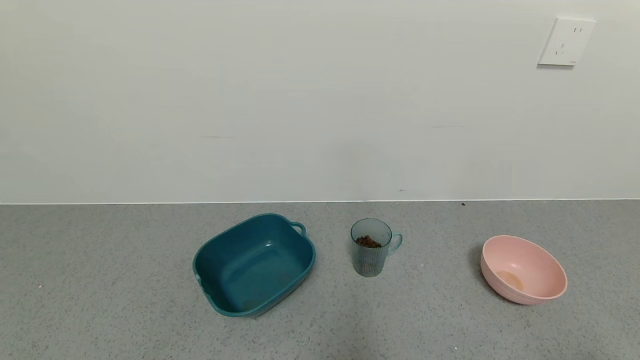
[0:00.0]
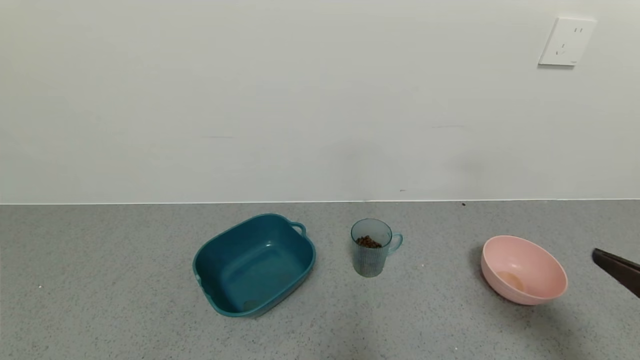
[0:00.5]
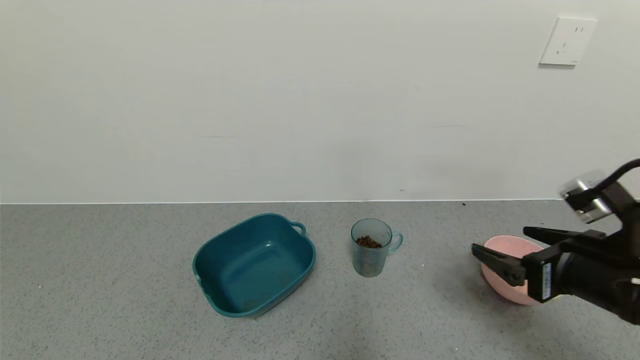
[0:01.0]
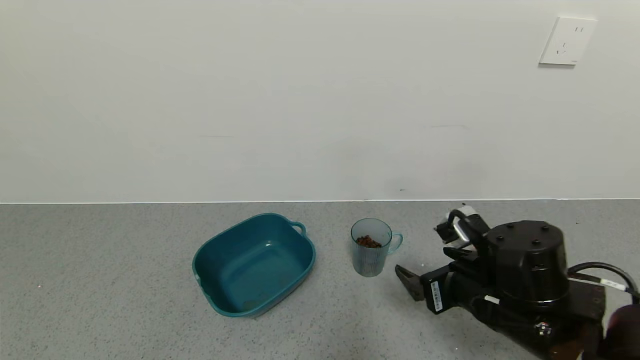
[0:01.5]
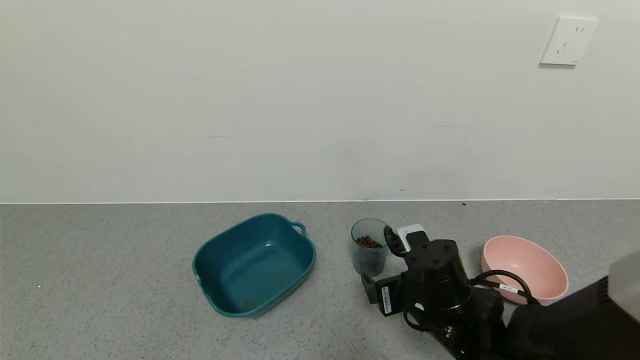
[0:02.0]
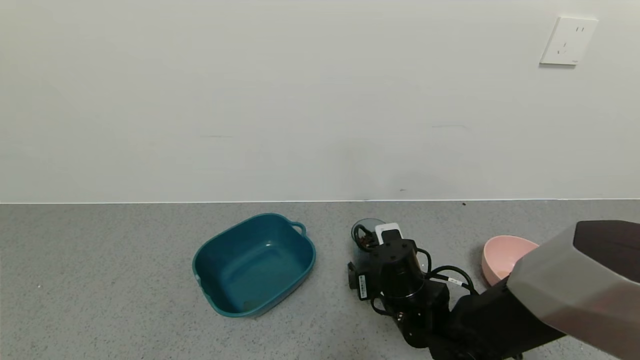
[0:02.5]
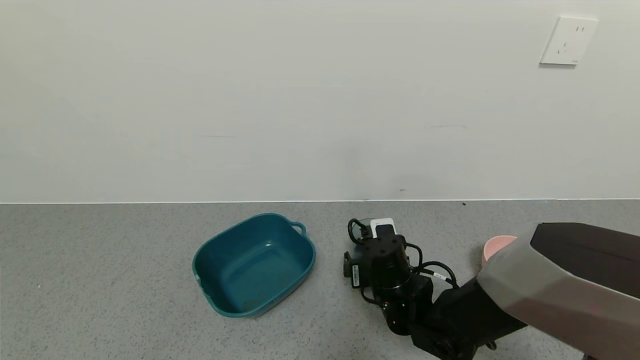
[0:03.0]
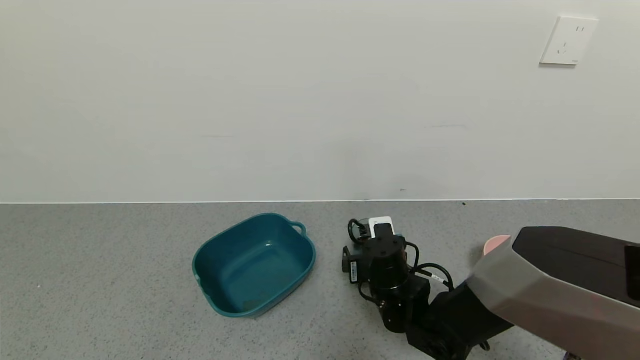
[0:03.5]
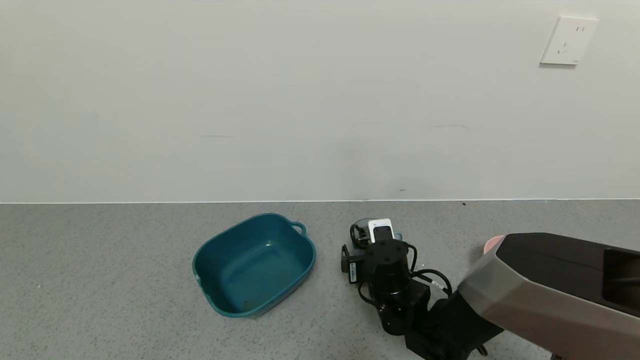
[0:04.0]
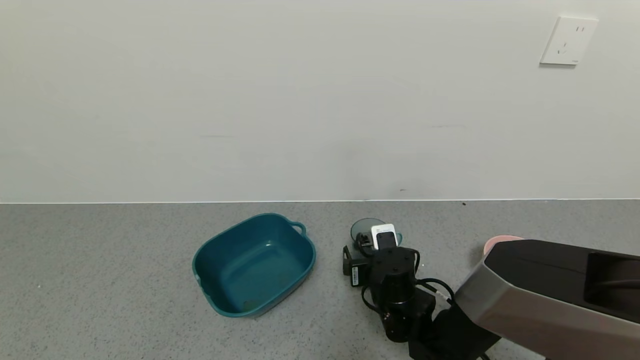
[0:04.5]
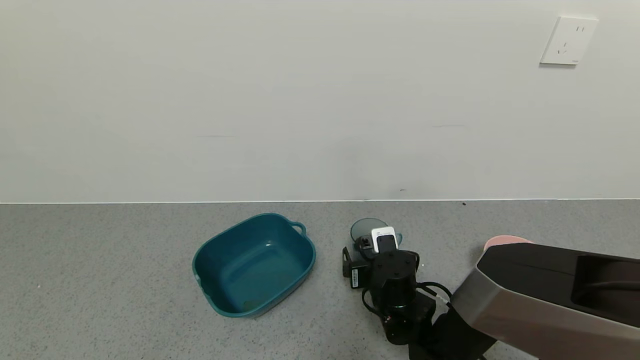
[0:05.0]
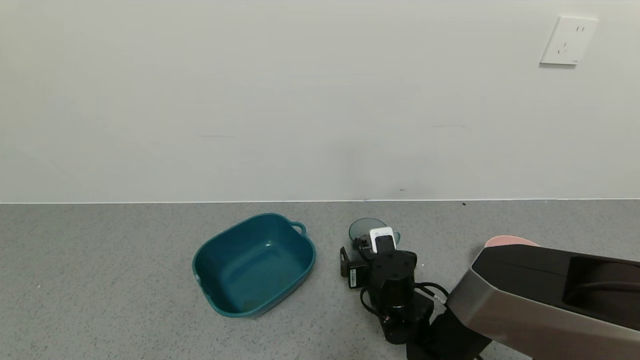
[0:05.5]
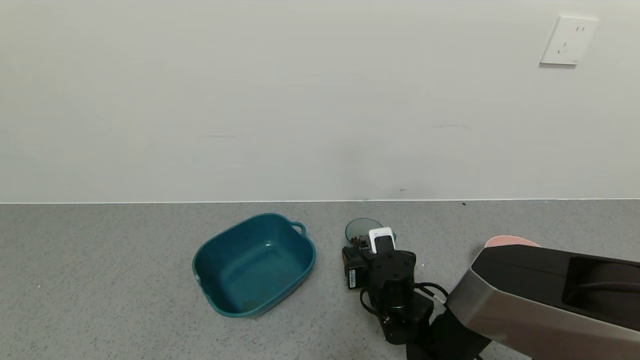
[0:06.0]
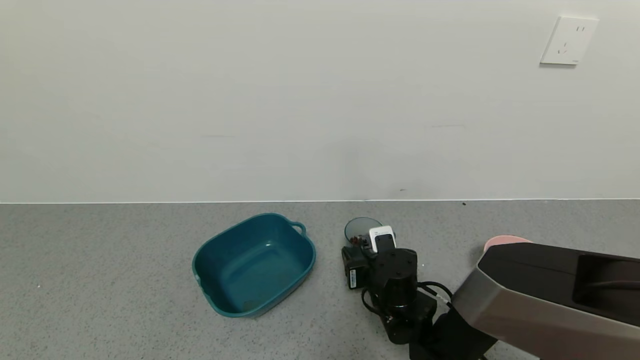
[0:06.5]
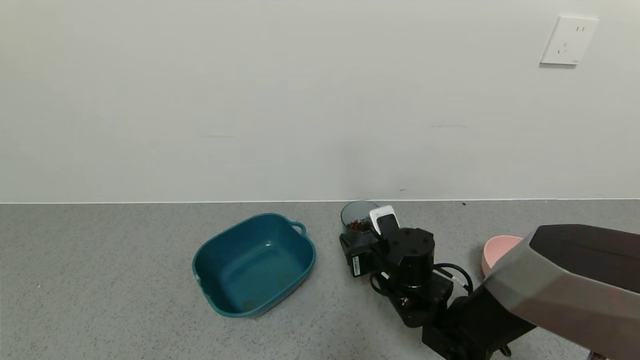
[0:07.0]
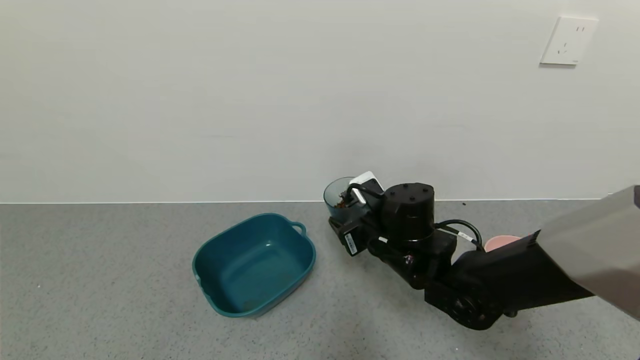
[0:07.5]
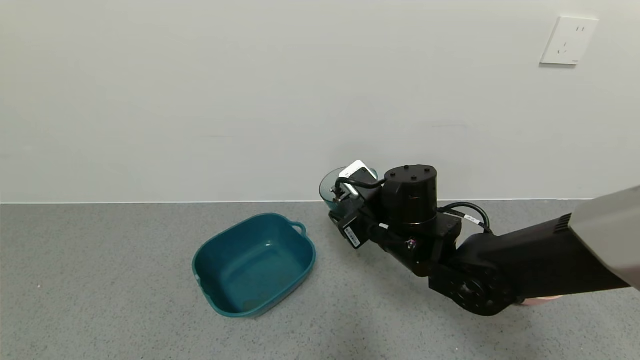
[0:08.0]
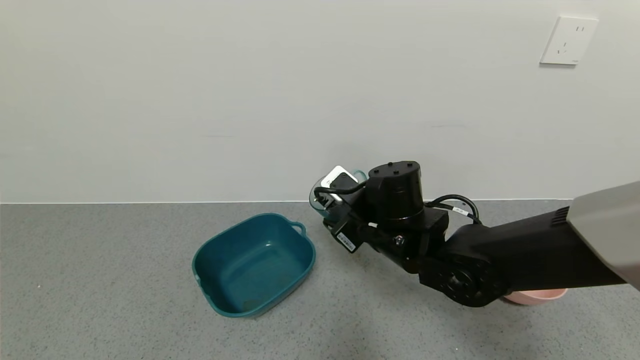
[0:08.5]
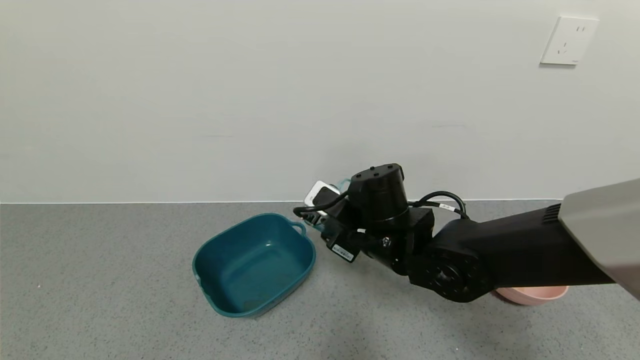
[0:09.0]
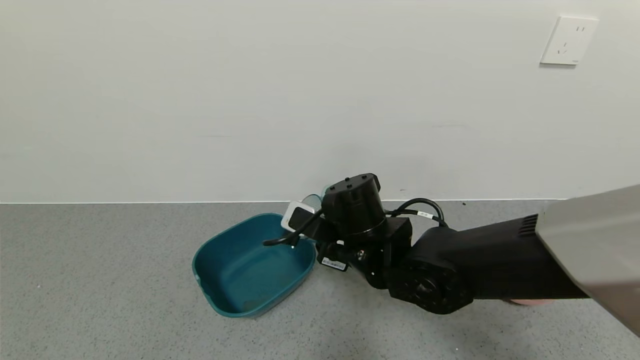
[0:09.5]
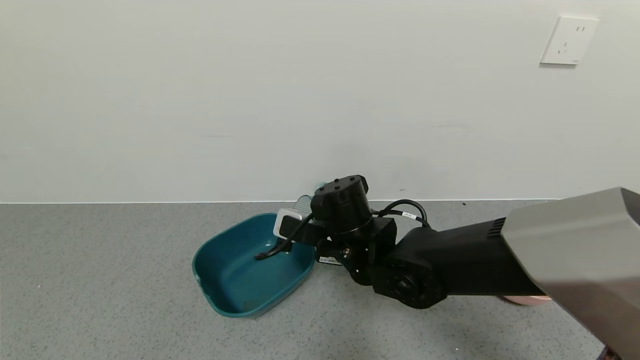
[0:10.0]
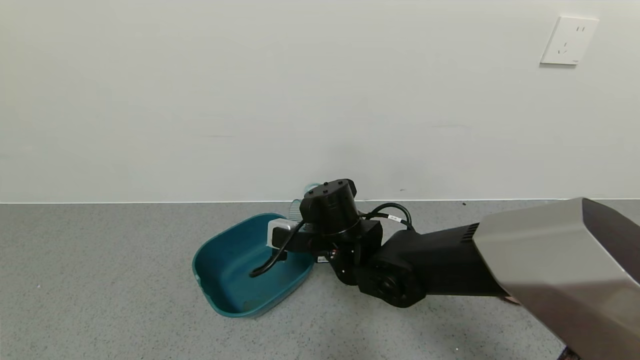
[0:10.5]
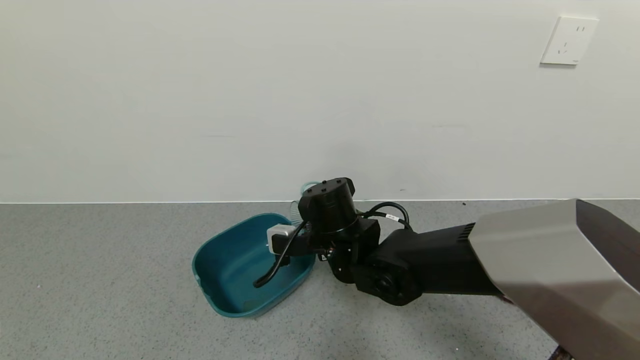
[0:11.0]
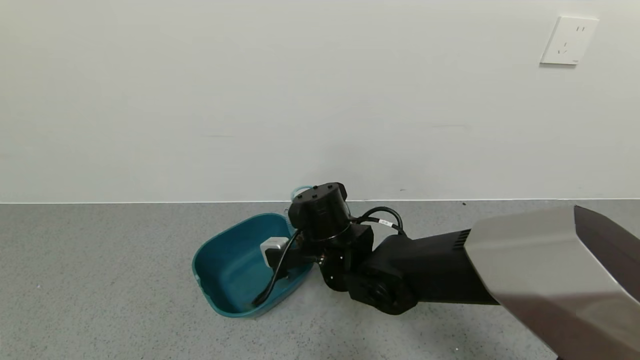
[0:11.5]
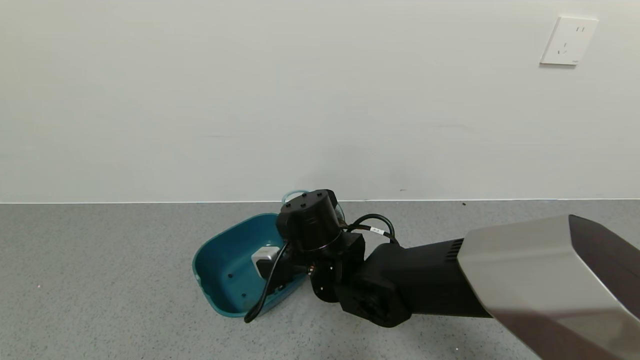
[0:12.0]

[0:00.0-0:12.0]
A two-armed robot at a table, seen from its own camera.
Task of the whole recording: use a gripper to pick up the cup and pour the solid into a bowl or tray.
Step, 0:00.0 to 0:06.0: Grasp the glass of coffee beans with the right gripper.
0:00.0 to 0:02.0: The right gripper goes about 35 cm forward and to the left.
0:02.0 to 0:04.0: The right gripper heads forward and to the left, covering approximately 10 cm.
0:04.0 to 0:06.0: The right gripper closes.
0:06.0 to 0:08.0: The right gripper moves upward, about 15 cm.
0:08.0 to 0:10.0: The right gripper goes roughly 5 cm to the left.

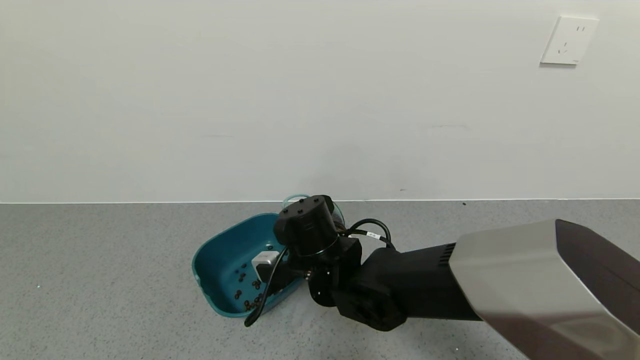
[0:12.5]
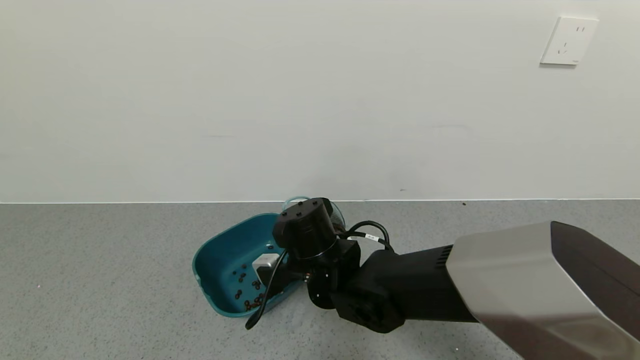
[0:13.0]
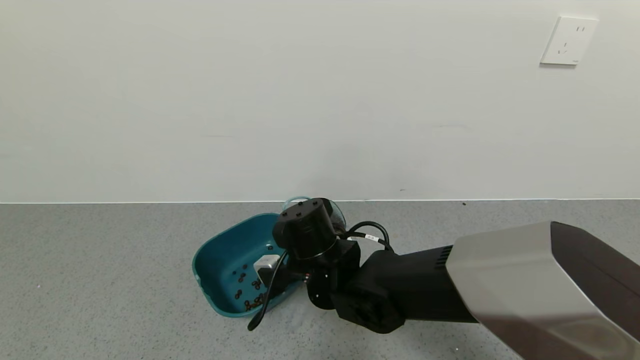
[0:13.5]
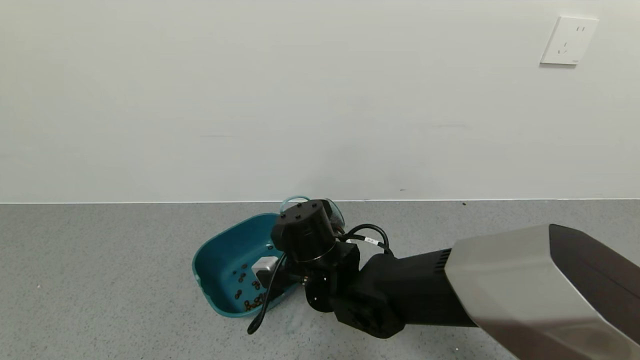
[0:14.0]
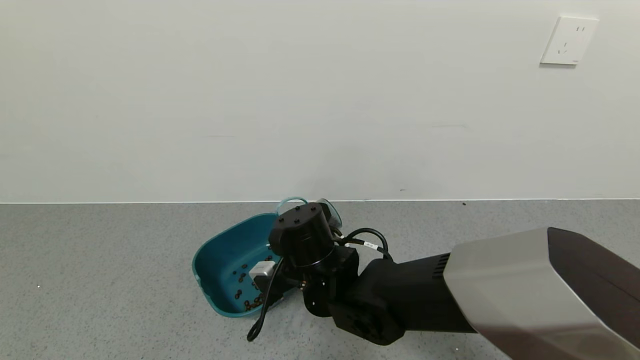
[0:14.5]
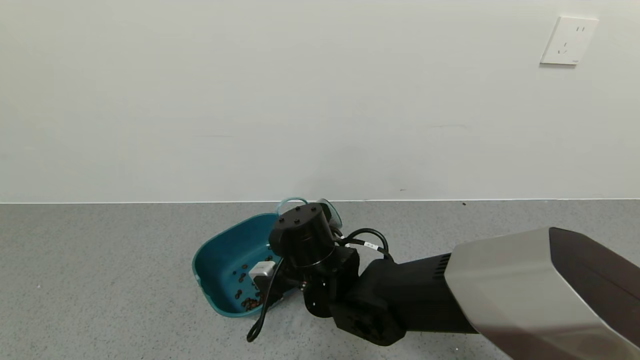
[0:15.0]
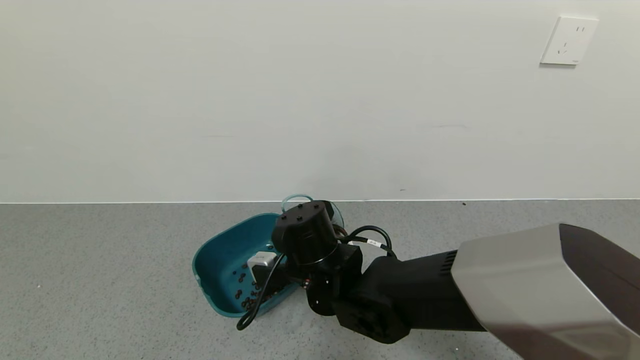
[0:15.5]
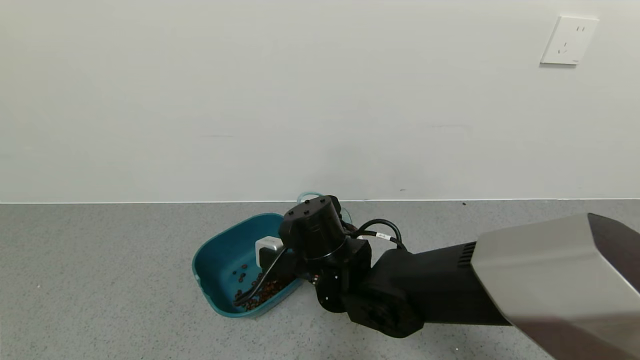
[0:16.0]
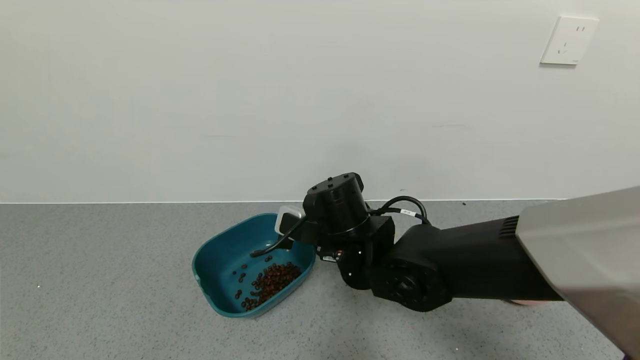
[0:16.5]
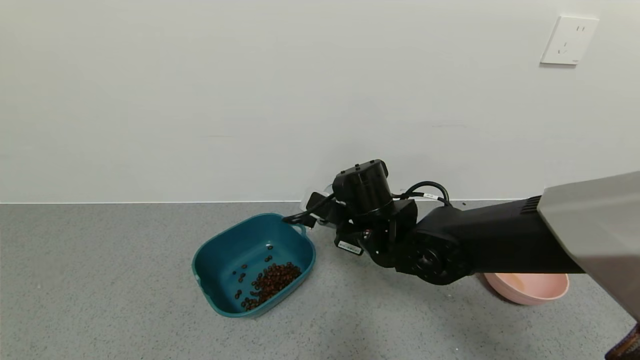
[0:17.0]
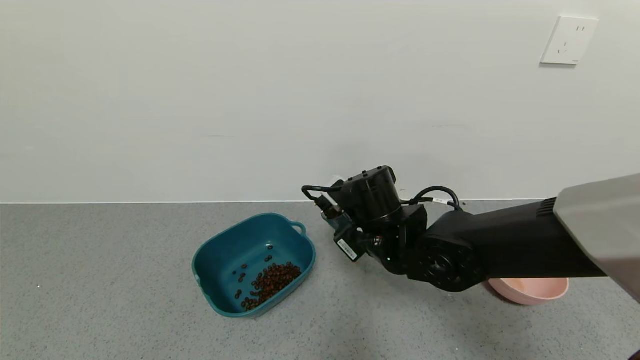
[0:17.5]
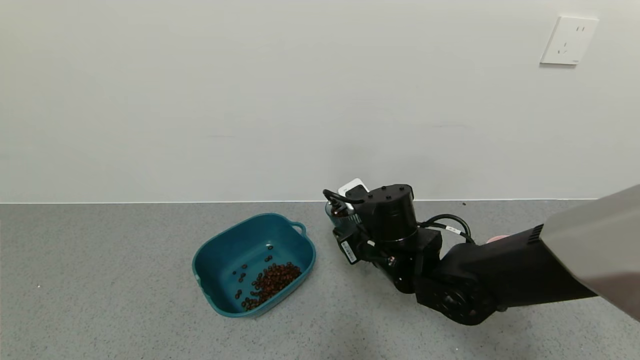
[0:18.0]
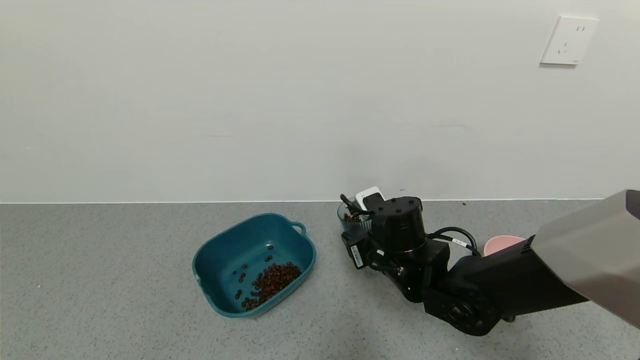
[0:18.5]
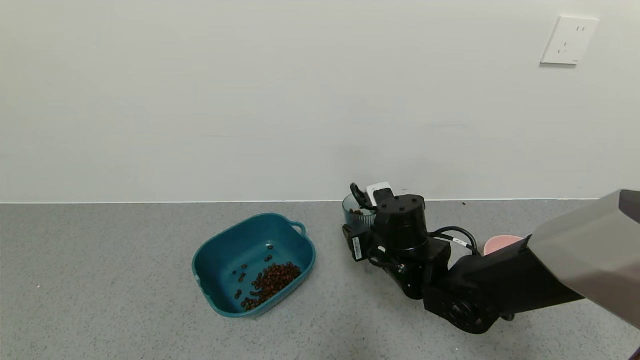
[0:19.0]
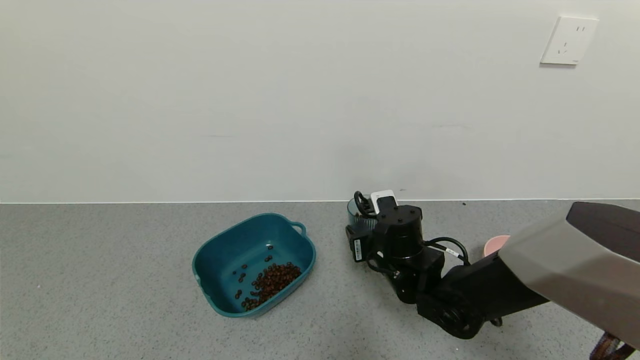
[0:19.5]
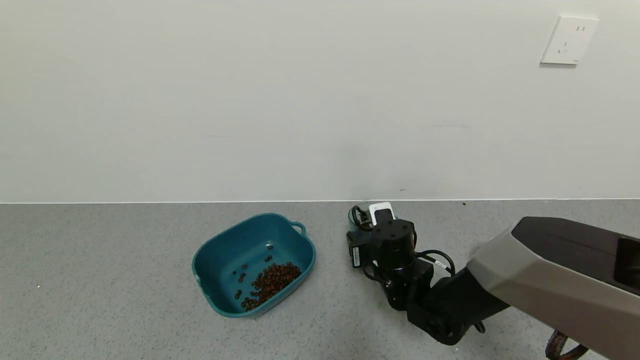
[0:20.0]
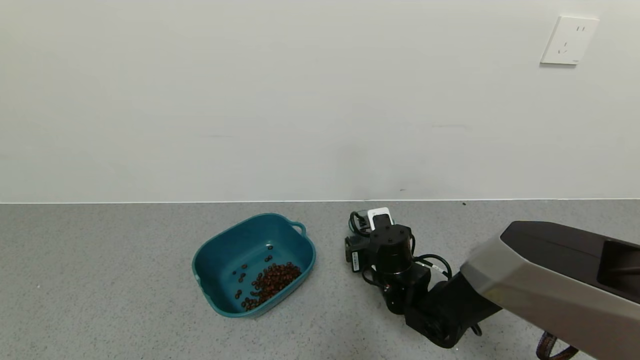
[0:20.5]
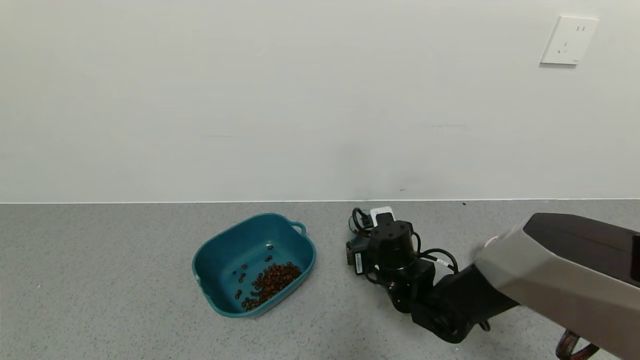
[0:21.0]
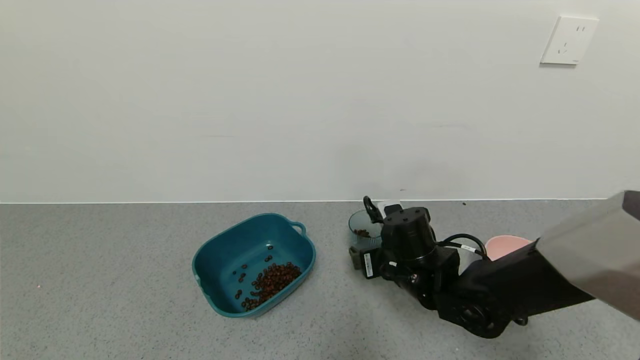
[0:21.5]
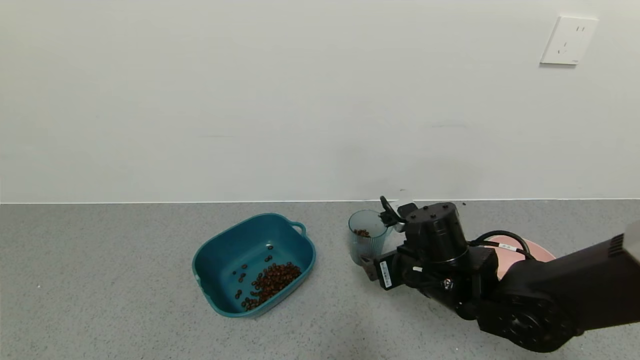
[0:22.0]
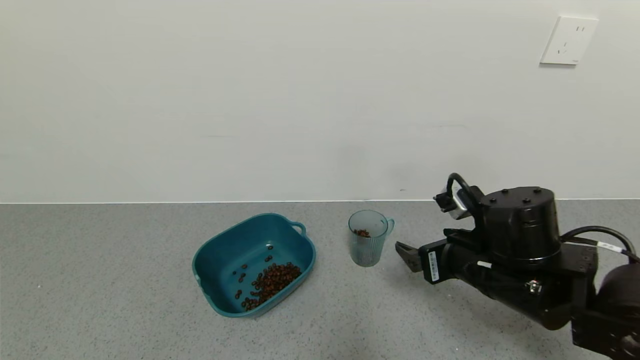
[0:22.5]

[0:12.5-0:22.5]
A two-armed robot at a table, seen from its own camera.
Task of the whole recording: use a gripper to pick up the cup and pour the solid into a bowl or tray.
Step, 0:12.5 to 0:16.5: Pour the coffee beans into the green bowl with the right gripper.
Step, 0:17.0 to 0:22.0: Place the glass cup with the right gripper.
0:12.5 to 0:14.5: There are only small adjustments of the grippers.
0:14.5 to 0:16.5: The right gripper shifts by roughly 5 cm.
0:16.5 to 0:18.5: The right gripper travels to the right by approximately 5 cm.
0:18.5 to 0:20.5: The right gripper heads downward, covering approximately 5 cm, and opens.
0:20.5 to 0:22.5: The right gripper travels upward, to the right and backward by approximately 20 cm.
